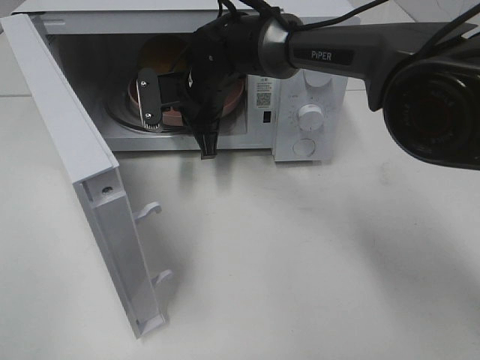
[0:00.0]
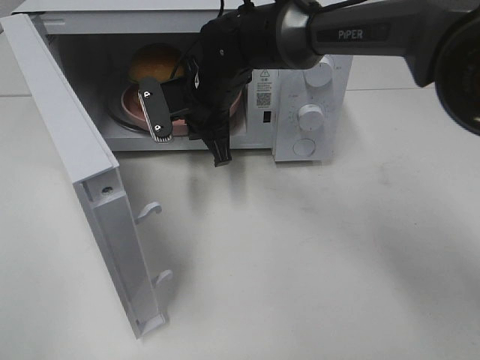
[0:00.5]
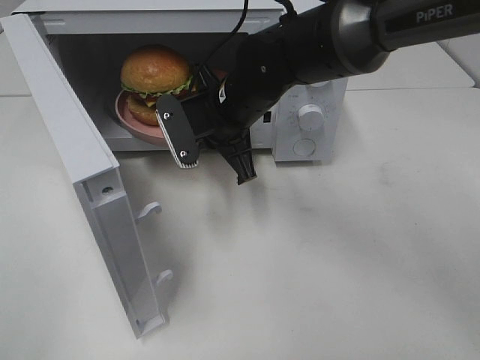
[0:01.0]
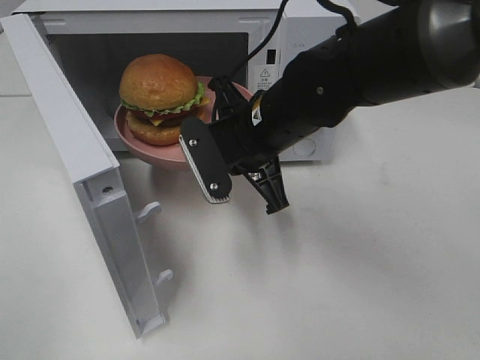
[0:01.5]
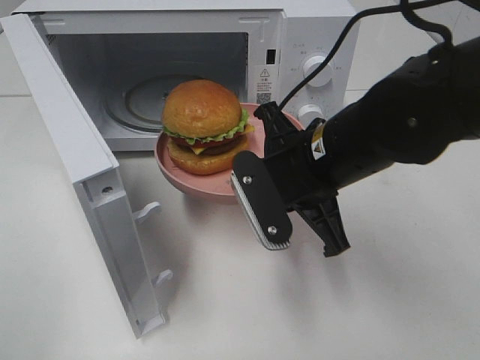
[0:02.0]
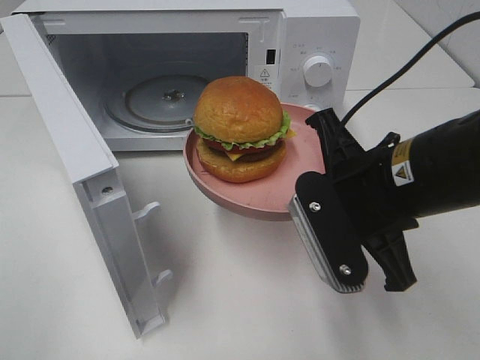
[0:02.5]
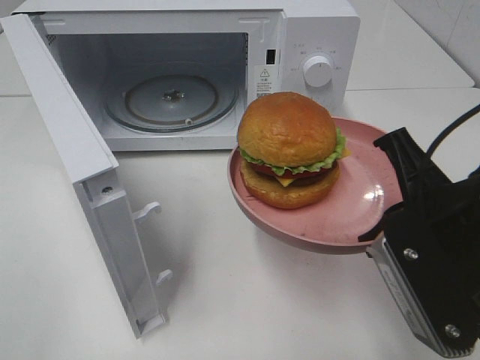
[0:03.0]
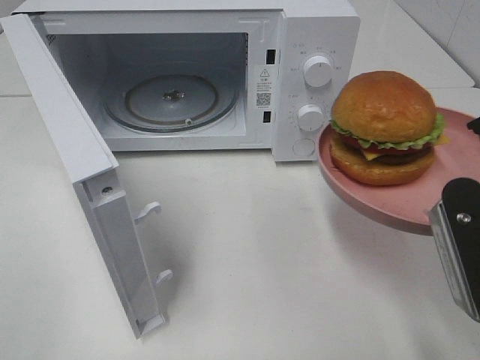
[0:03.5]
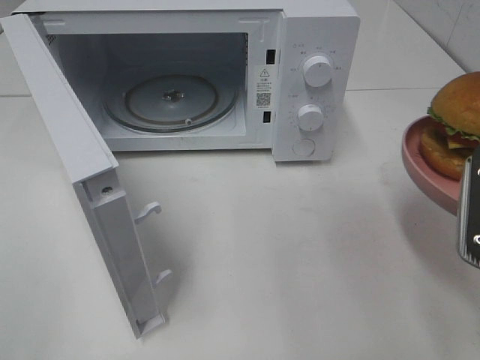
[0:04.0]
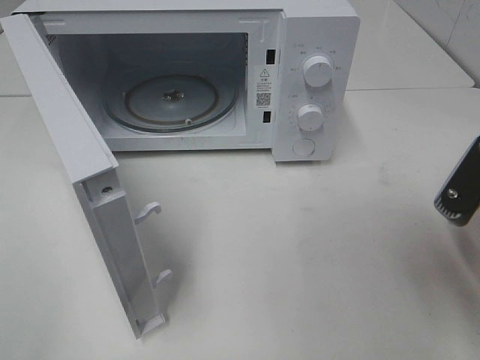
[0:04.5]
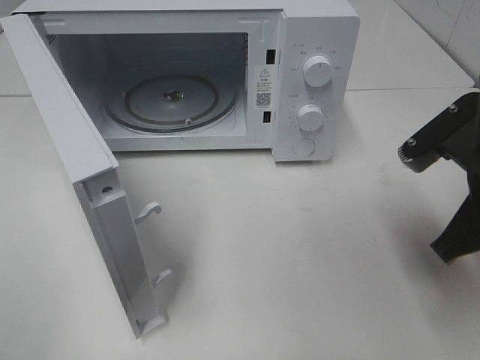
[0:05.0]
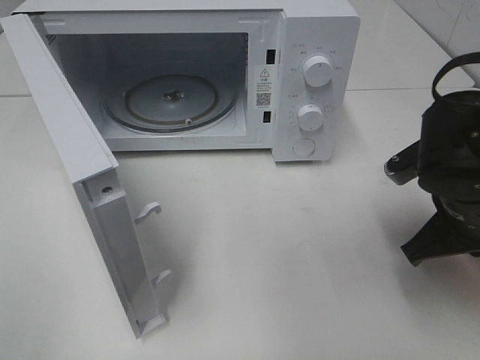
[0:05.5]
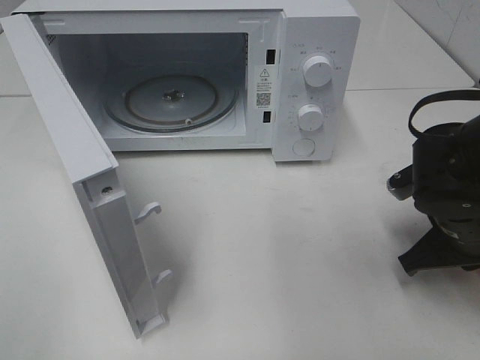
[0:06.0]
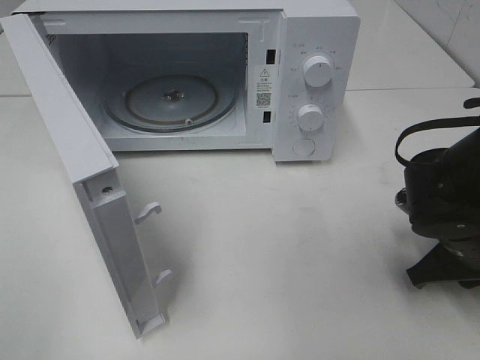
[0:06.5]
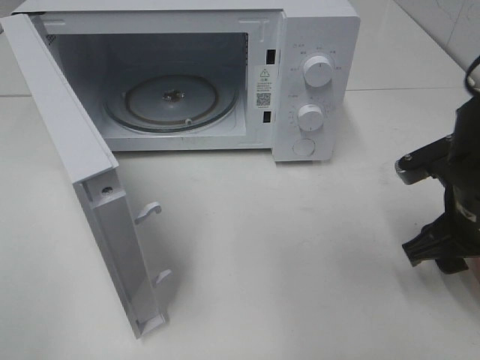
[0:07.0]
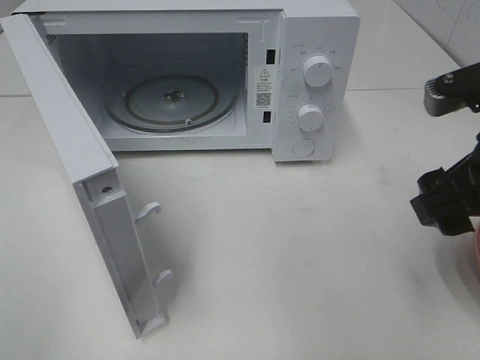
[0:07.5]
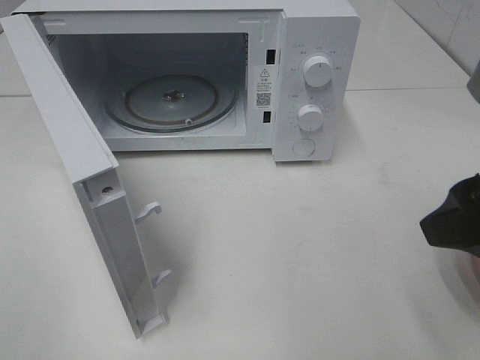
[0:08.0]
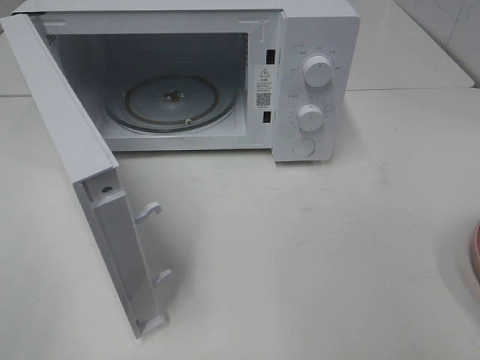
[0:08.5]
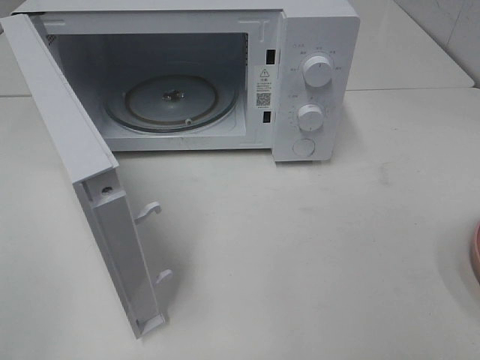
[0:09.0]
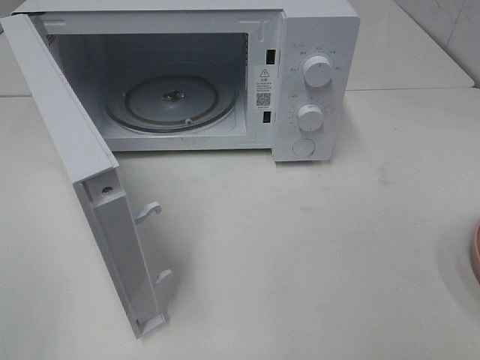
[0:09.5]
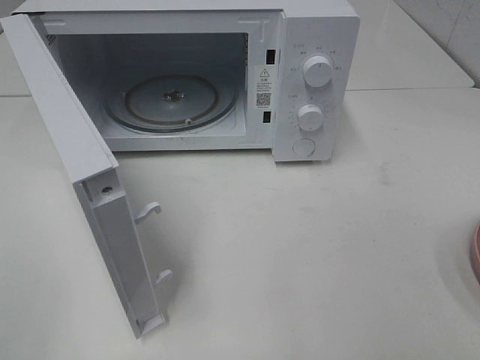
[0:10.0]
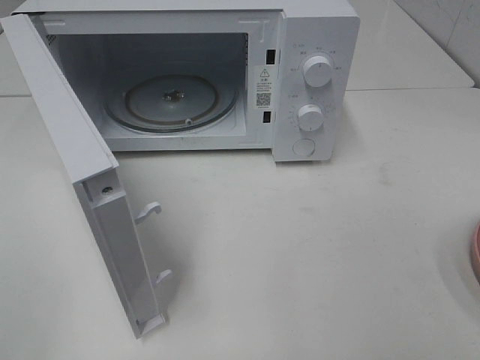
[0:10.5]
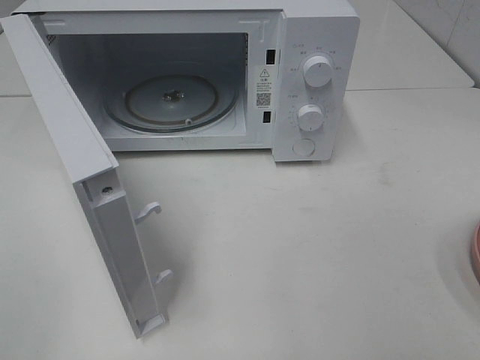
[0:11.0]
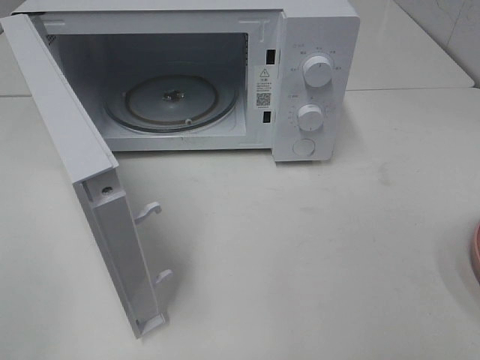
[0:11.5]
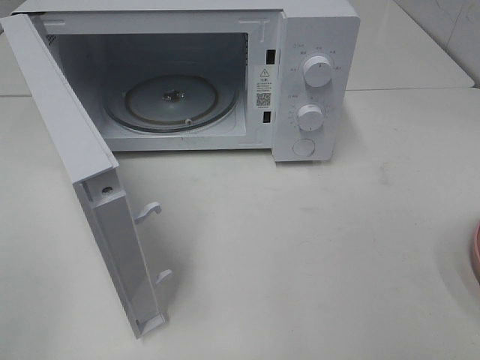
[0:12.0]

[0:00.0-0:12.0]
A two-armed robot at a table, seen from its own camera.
Task of the whole recording: Heat the burger.
Step, 0.5 to 6.5 s: Right hand: place the plate on the table.
0.0 to 2.0 s: The right gripper shifts about 25 cm backward and to the right.
2.0 to 4.0 s: The right gripper goes approximately 20 cm to the right and backward.
4.0 to 6.0 s: The right gripper heads downward and forward, covering about 15 cm.
6.0 to 8.0 s: The right gripper goes some 20 cm upward and backward, and opens its fingers.
8.0 to 10.0 s: The right gripper travels backward and to the right by approximately 15 cm.

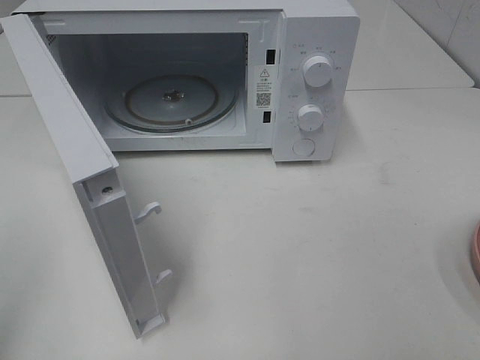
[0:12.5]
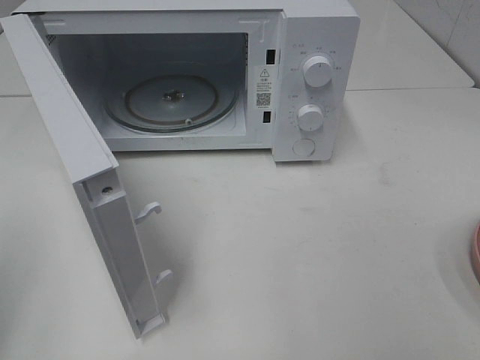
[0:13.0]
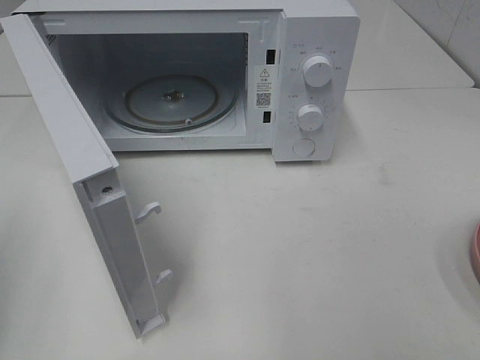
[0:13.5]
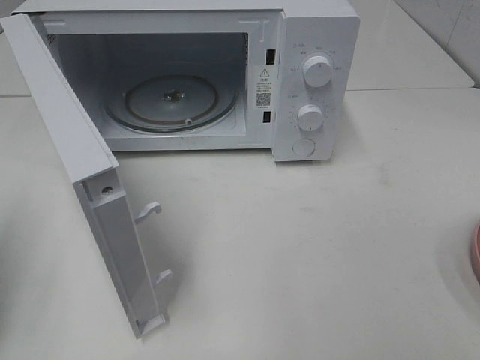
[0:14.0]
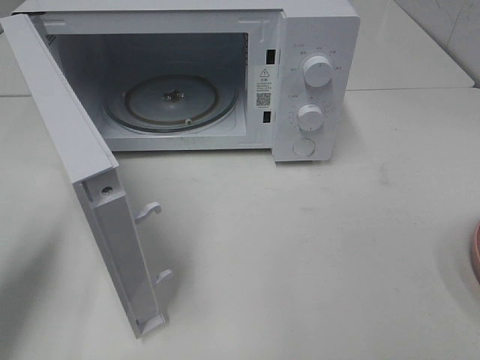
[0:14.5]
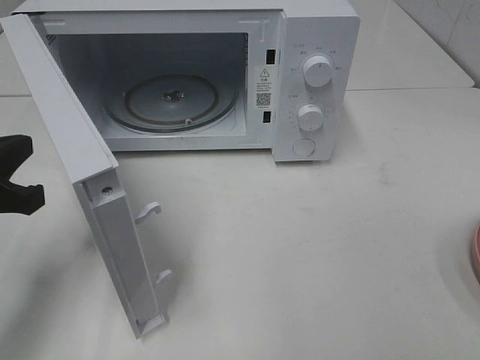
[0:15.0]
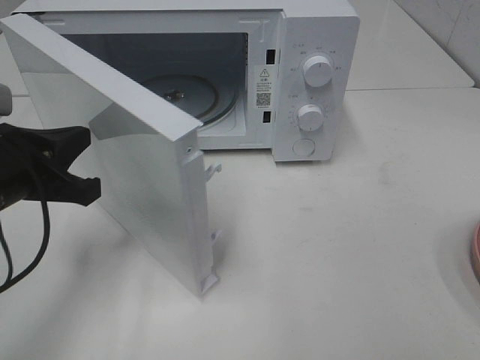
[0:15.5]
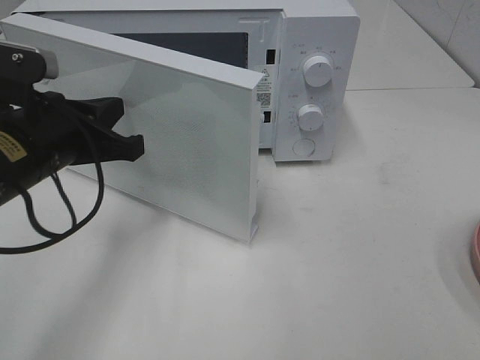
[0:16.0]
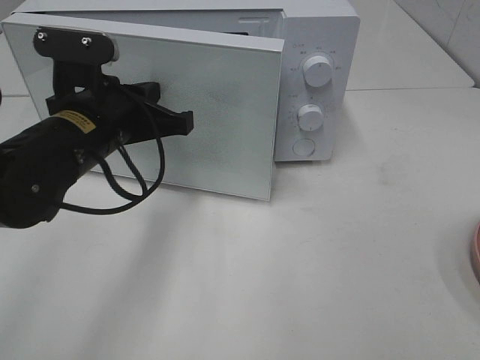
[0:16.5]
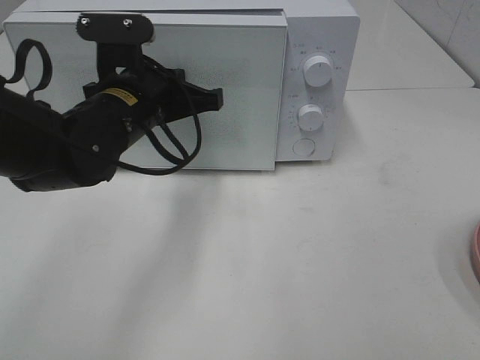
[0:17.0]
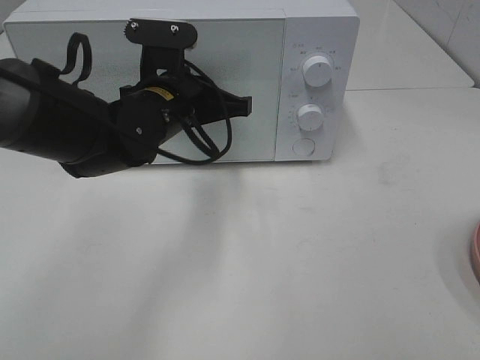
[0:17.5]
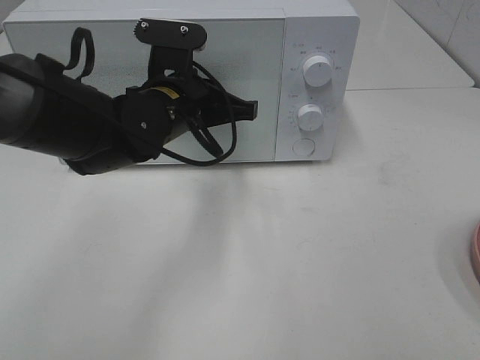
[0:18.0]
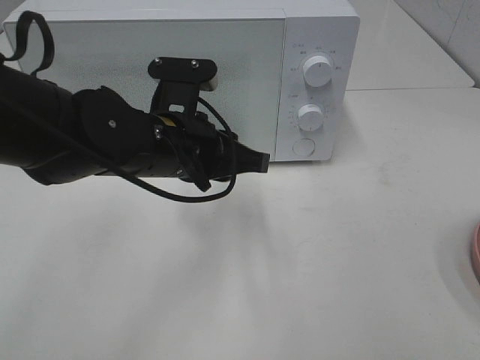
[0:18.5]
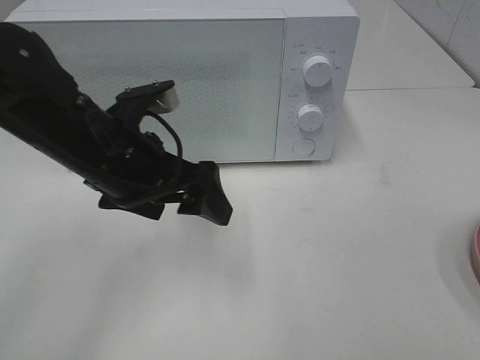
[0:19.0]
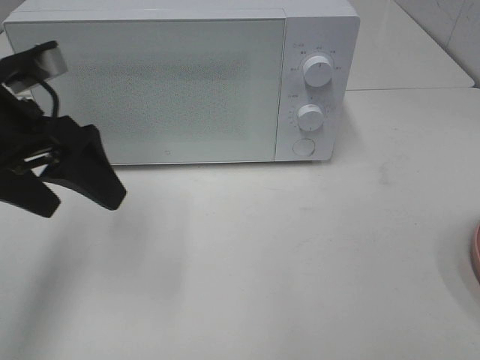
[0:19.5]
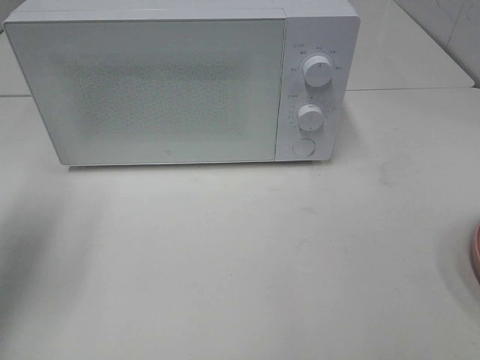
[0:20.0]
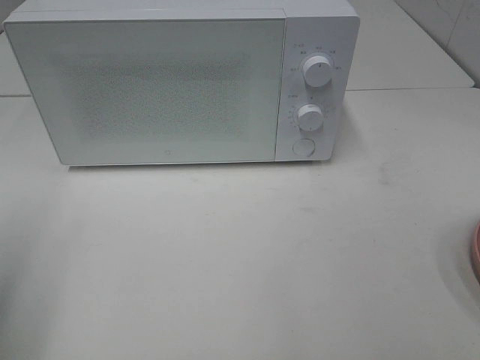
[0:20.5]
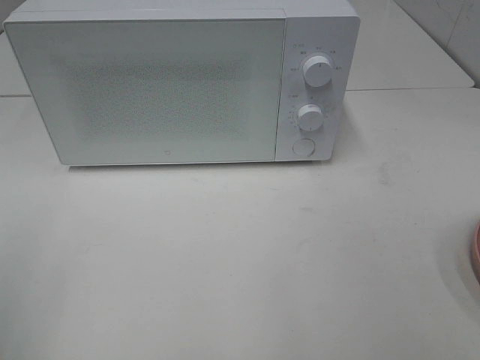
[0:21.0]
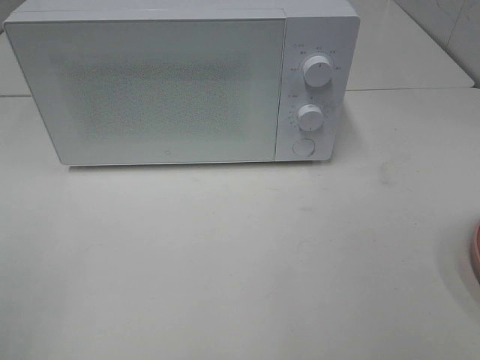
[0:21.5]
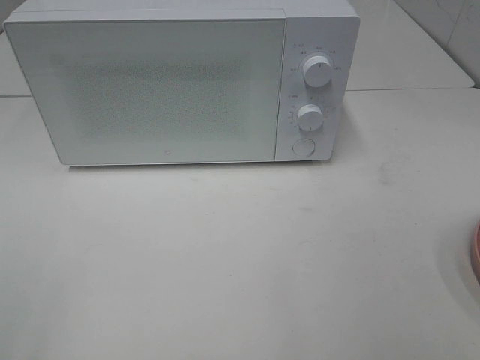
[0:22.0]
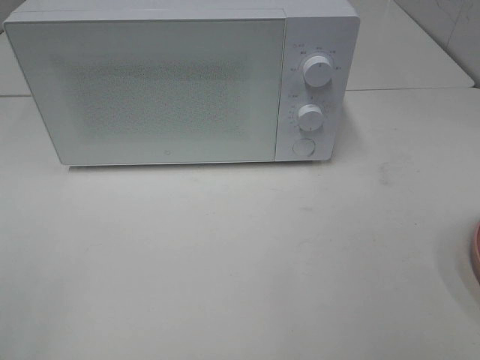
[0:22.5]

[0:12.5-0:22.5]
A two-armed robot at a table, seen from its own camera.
Task of the whole recording: Heat the burger.
Step, 12.5 to 18.0 s: Left hand: close the microwave door.
12.5 to 14.5 s: The left gripper shifts roughly 15 cm forward and downward.
14.5 to 16.5 s: The left gripper is displaced to the right and forward by approximately 20 cm.
16.5 to 18.5 s: The left gripper heads to the right, covering approximately 5 cm, and opens its fingers.
18.5 to 20.5 s: The left gripper is displaced to the left and backward by some 30 cm, and opens up.
20.5 to 22.5 s: The left gripper shifts some 15 cm backward.

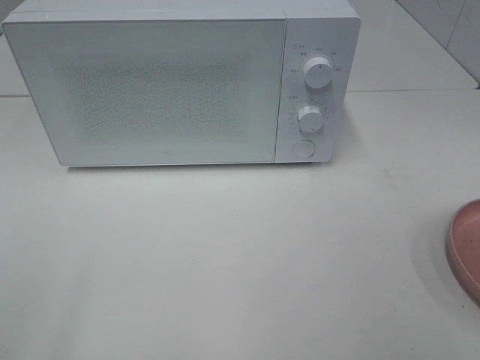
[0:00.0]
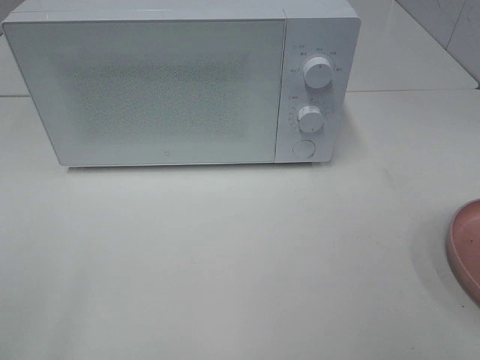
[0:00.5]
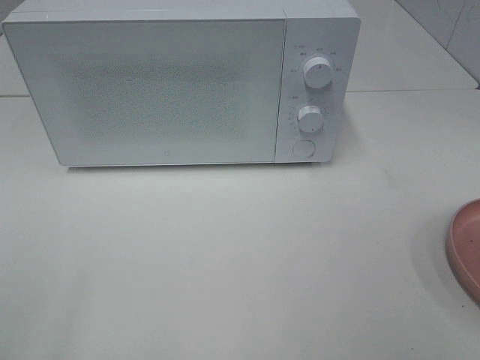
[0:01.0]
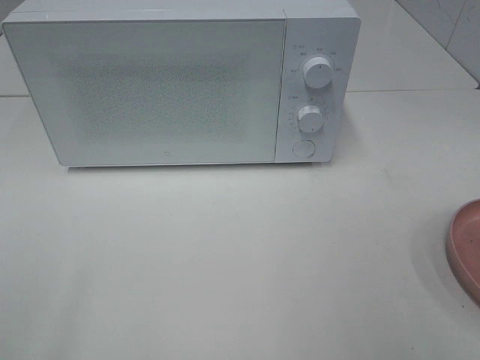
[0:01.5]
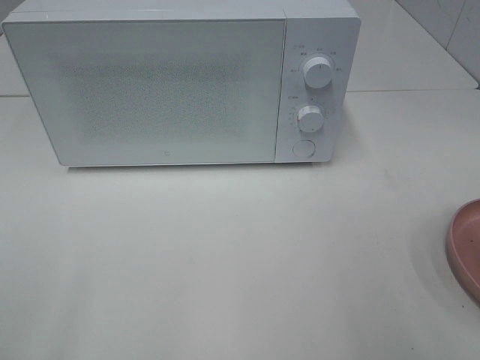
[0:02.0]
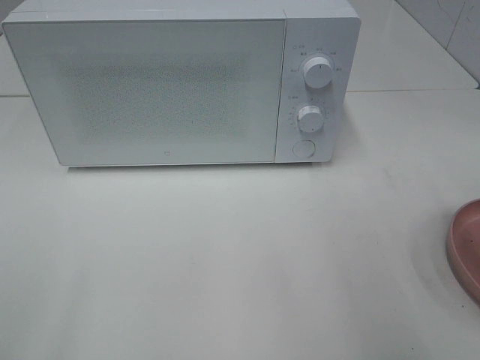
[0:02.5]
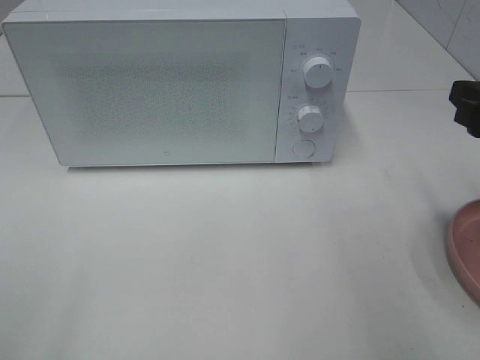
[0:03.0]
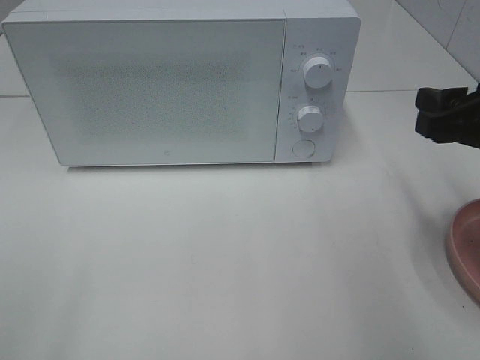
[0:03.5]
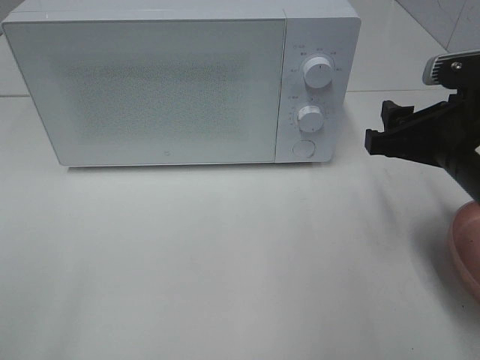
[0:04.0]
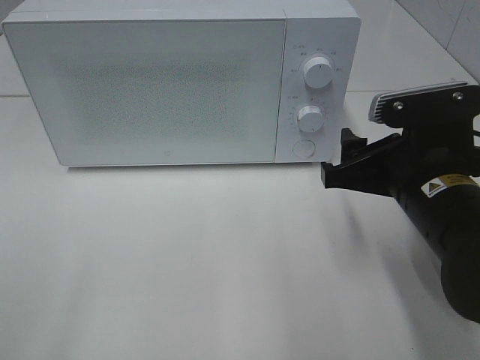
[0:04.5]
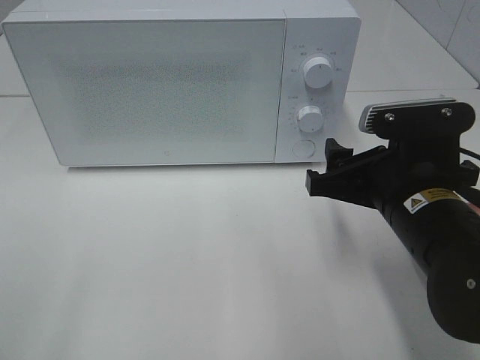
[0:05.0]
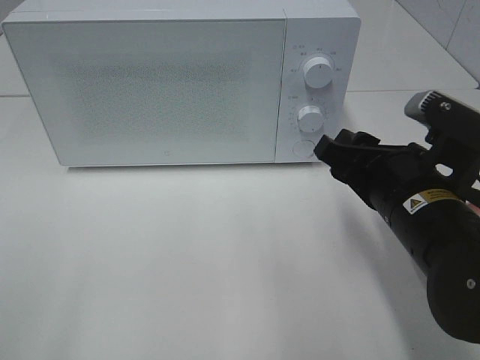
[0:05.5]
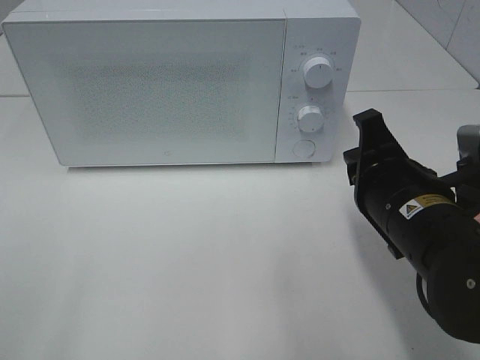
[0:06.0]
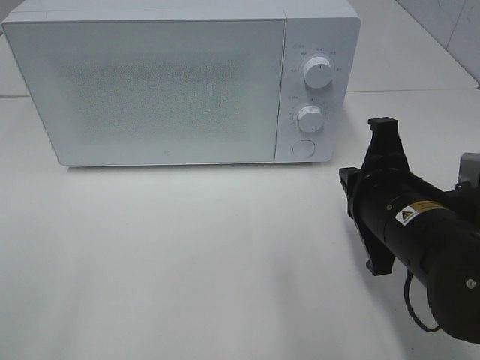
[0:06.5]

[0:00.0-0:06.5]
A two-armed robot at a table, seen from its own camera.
Task of the whole recording: Heat the burger.
2.0 to 4.5 s: The right gripper shifts roughly 20 cm to the left, downward and forward.
4.5 to 6.5 s: The right gripper closes its fingers.
